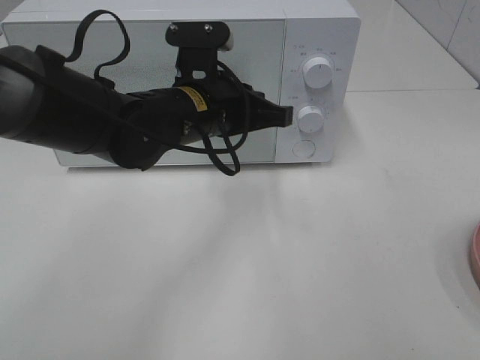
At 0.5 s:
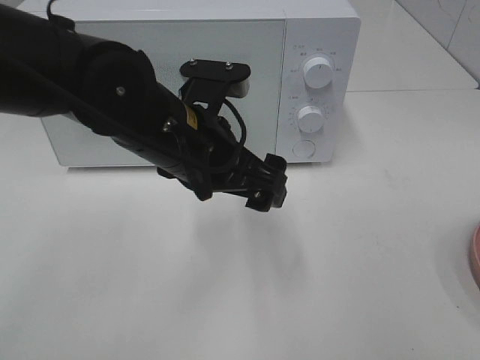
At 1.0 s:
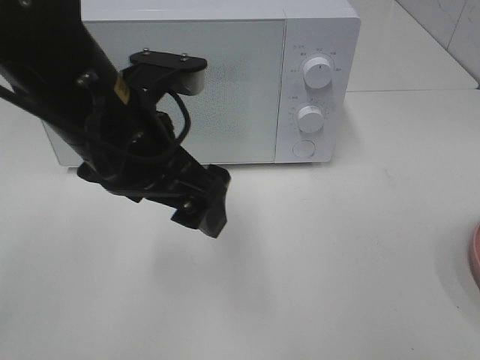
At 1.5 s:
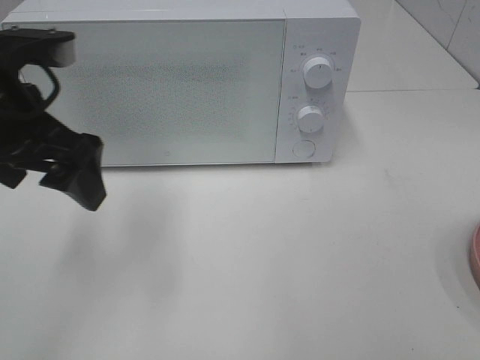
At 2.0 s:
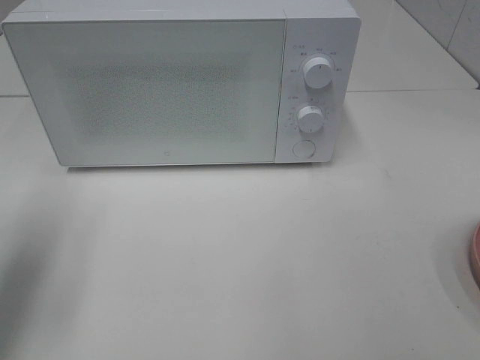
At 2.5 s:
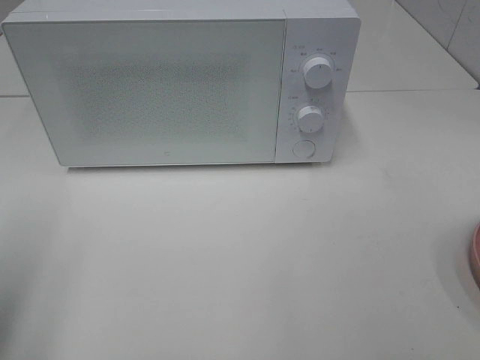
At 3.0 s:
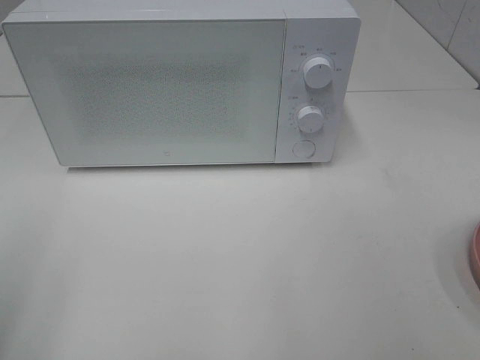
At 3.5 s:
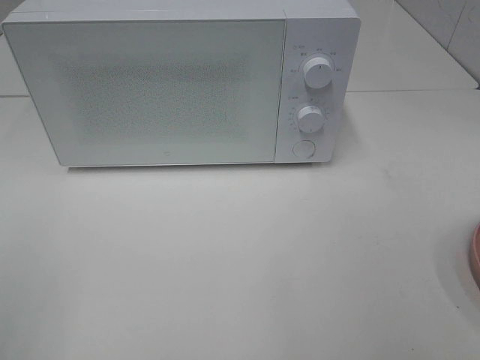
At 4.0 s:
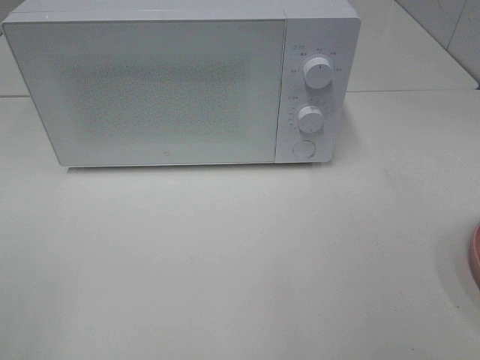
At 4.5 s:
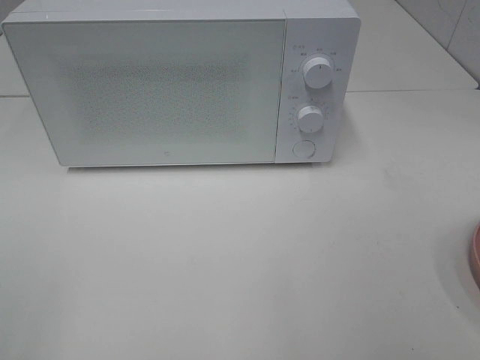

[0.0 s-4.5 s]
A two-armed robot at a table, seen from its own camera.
Task of the whole recording: Heat the burger.
0.0 to 2.0 s: The left gripper heads to the left and backward, covering about 30 cm, and opens its fingers.
2.0 to 4.5 s: The left gripper heads backward, covering approximately 20 cm.

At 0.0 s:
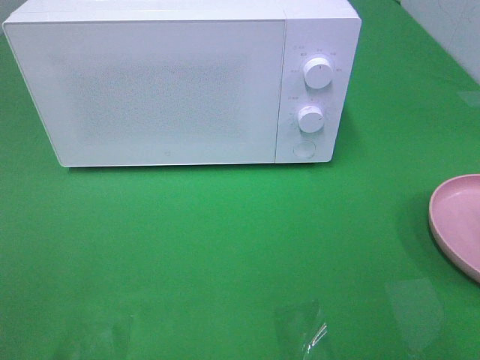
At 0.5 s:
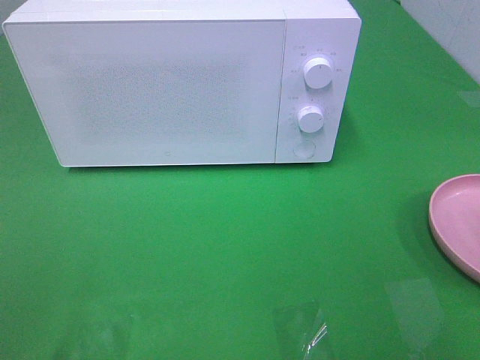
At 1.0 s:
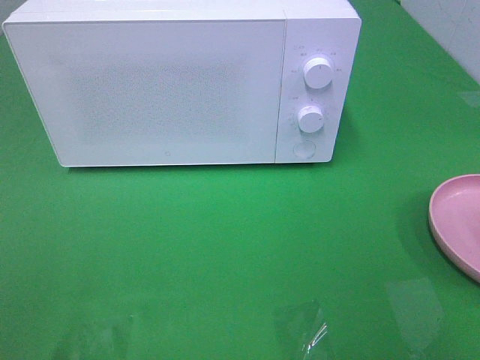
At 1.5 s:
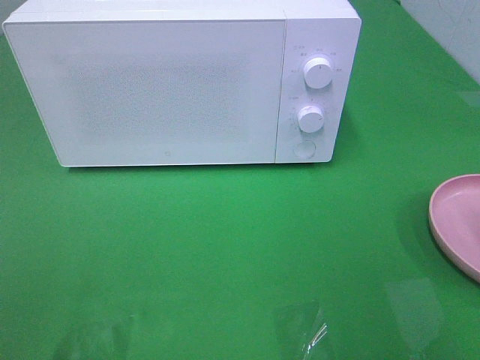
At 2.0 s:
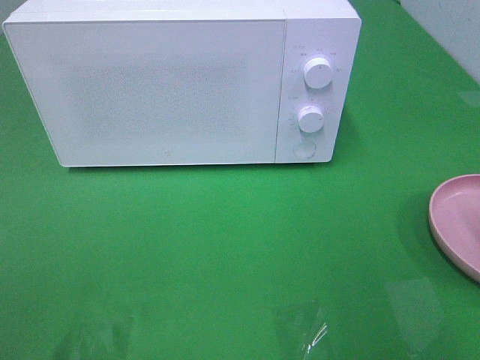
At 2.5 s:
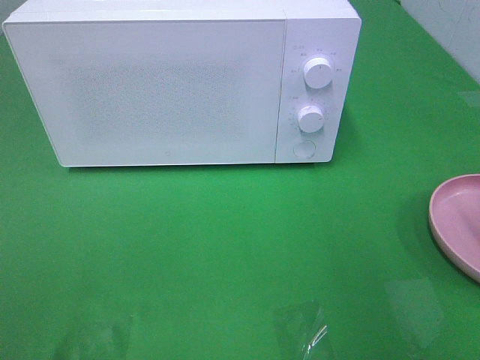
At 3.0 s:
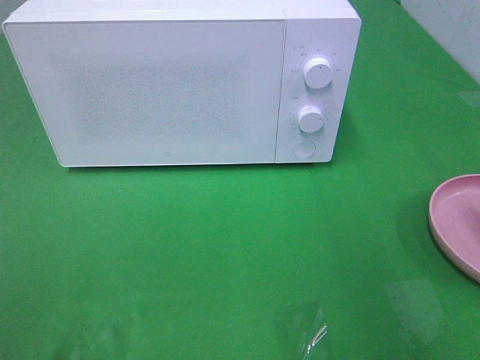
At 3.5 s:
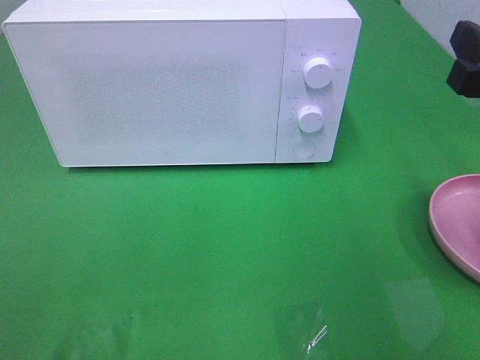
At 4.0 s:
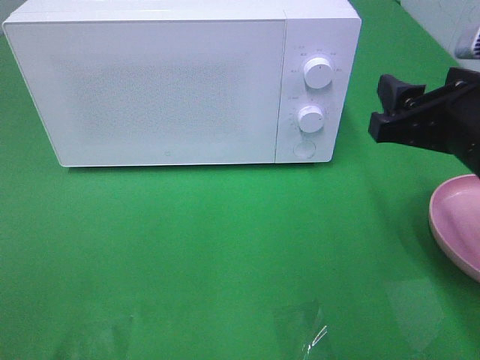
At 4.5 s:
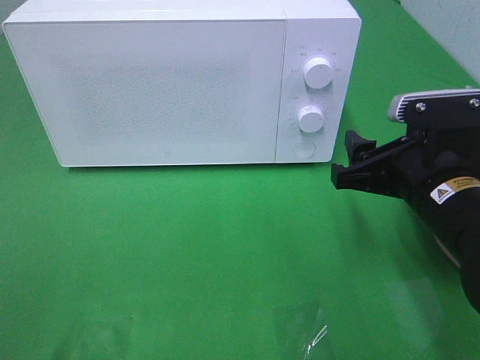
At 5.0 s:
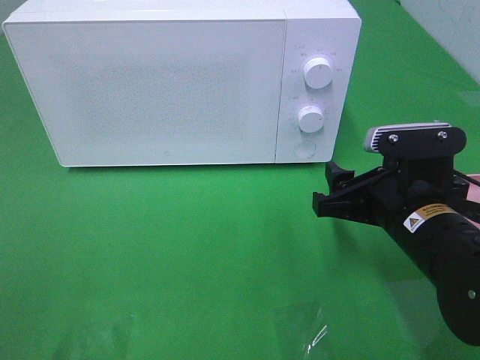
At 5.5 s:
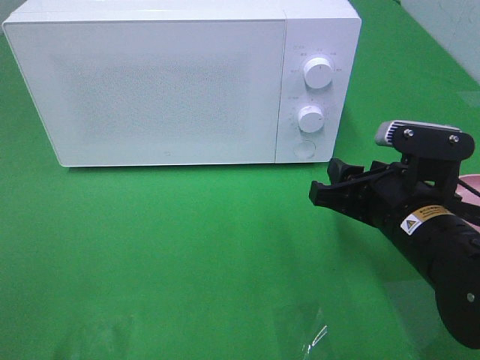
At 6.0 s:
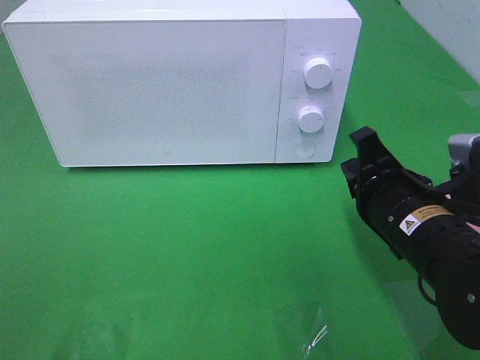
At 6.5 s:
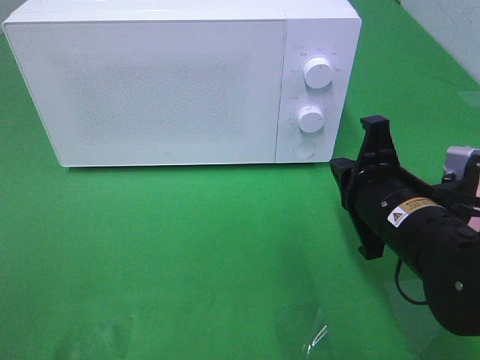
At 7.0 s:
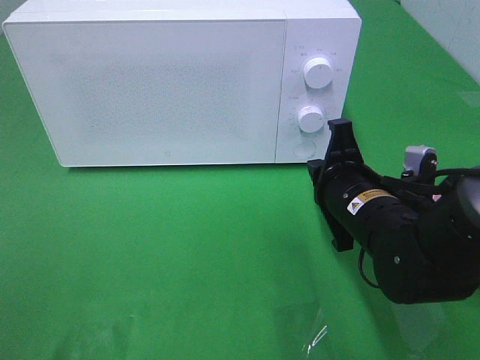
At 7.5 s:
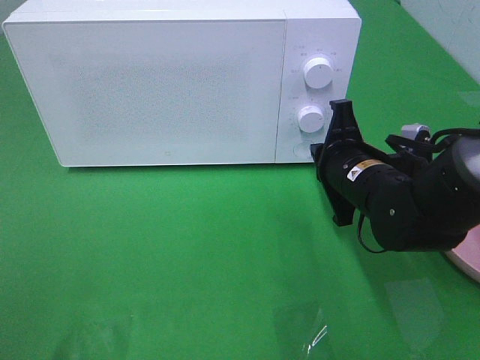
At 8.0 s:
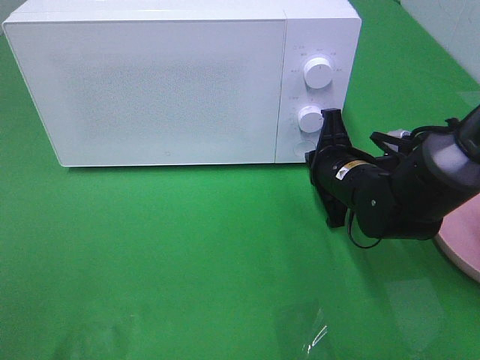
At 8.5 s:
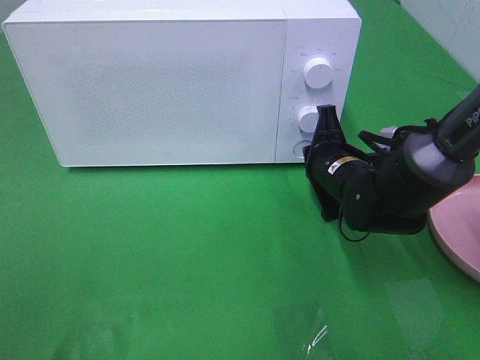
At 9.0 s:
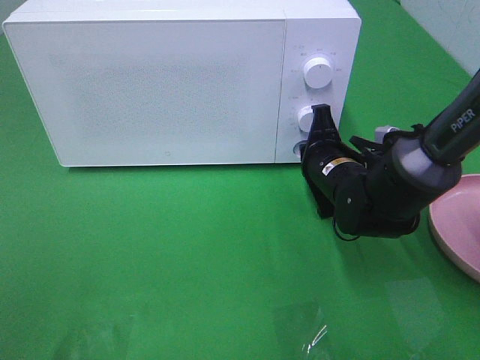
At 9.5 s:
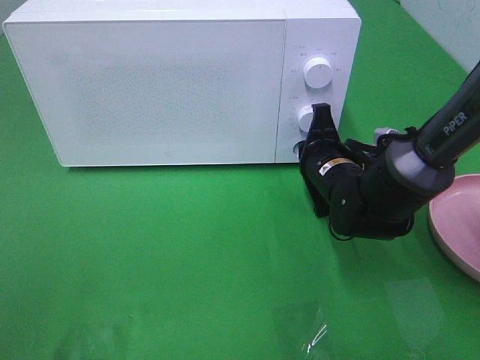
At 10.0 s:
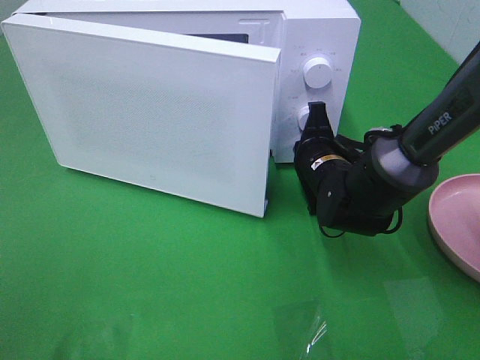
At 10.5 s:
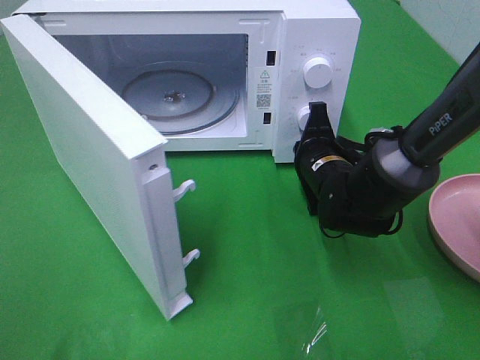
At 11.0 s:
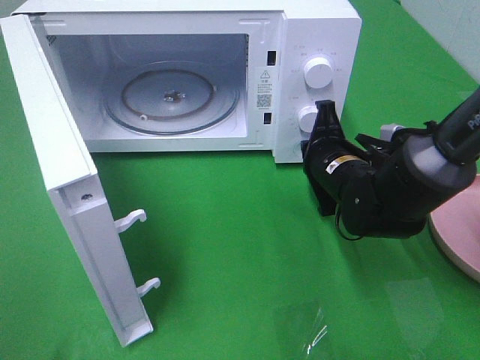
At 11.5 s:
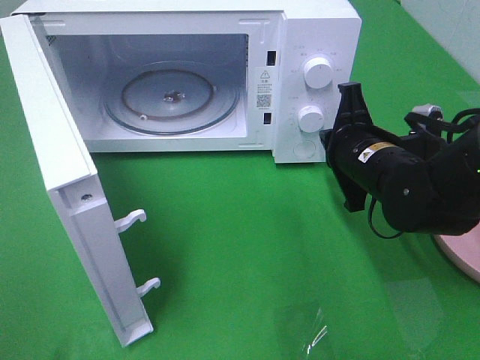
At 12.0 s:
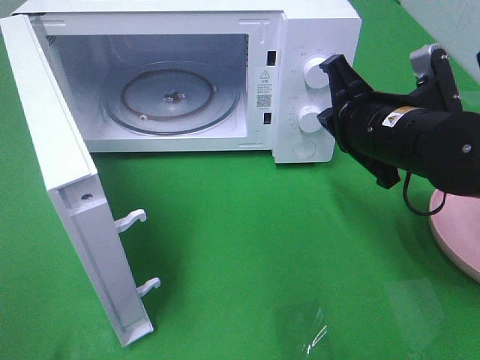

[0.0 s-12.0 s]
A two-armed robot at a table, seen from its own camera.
Task of the whole recording: Heat the burger.
Step, 0.0 to 8.5 s: Right hand: press the switch.
2.0 to 4.0 s: The right gripper goes about 15 cm downward, to the left and forward.
4.0 to 6.0 s: The right gripper travels downward by approximately 10 cm, and closes its fingers.
6.0 to 8.0 s: The right gripper goes some 10 cm forward.
8.0 to 10.0 s: The grippers make only small movements.
10.0 to 12.0 s: The right gripper is displaced upward and backward by approximately 15 cm.

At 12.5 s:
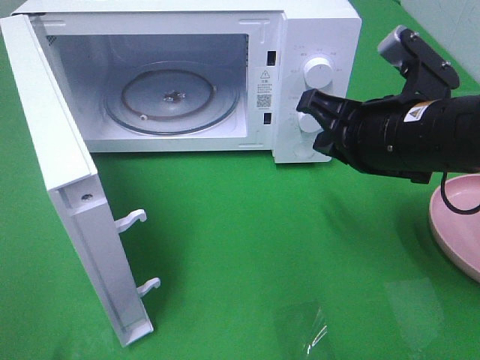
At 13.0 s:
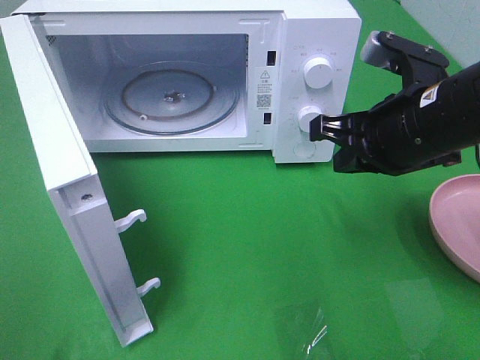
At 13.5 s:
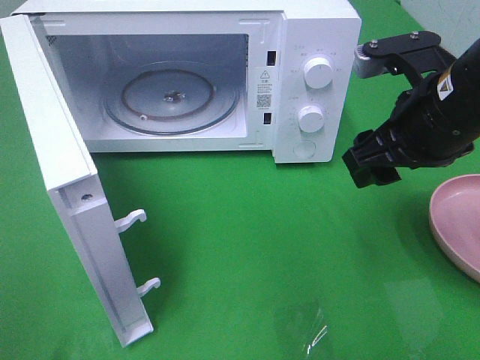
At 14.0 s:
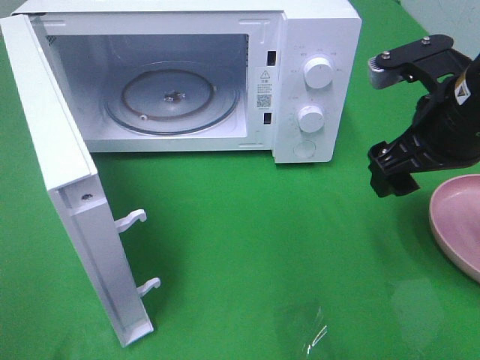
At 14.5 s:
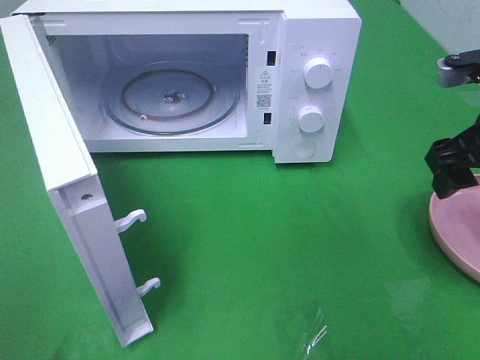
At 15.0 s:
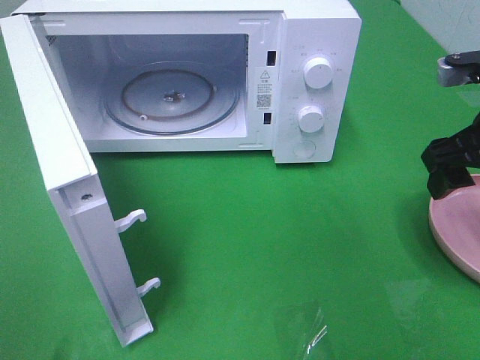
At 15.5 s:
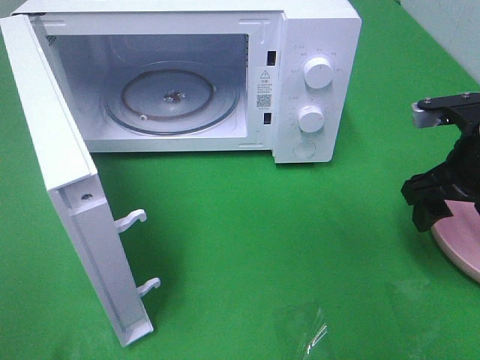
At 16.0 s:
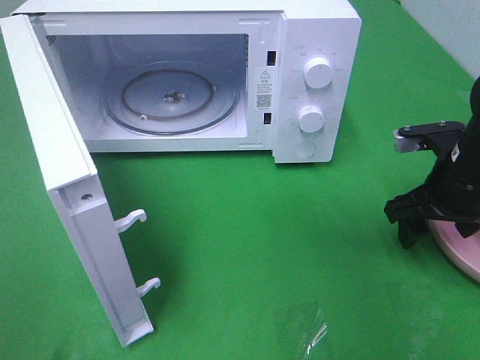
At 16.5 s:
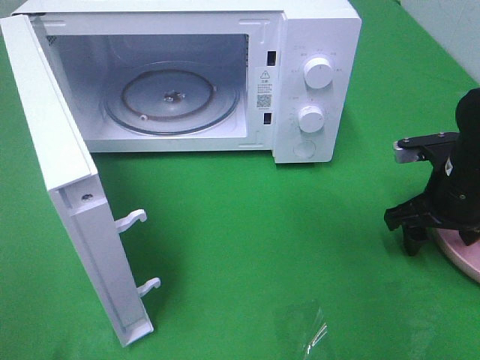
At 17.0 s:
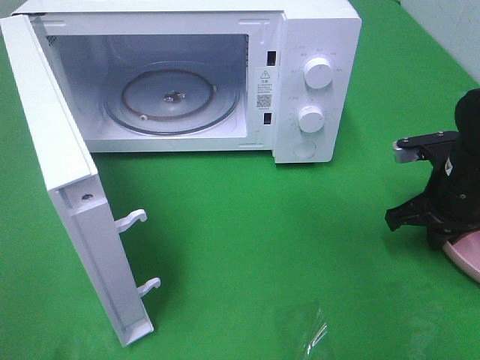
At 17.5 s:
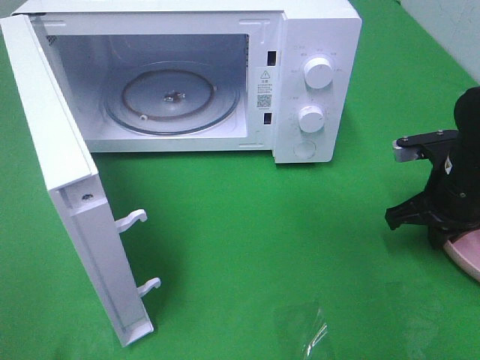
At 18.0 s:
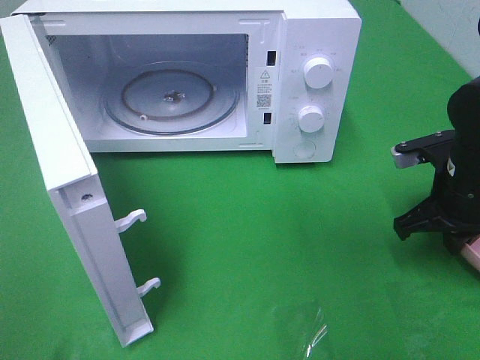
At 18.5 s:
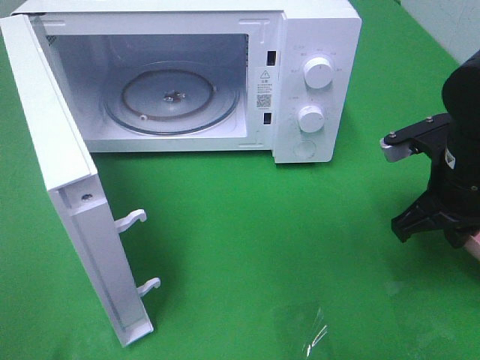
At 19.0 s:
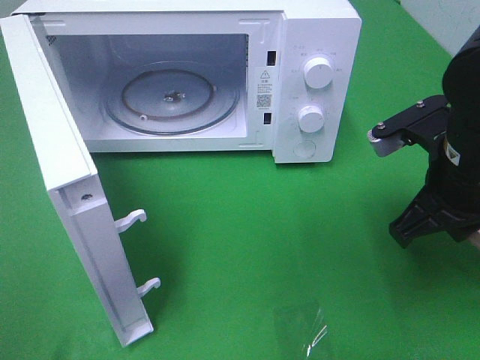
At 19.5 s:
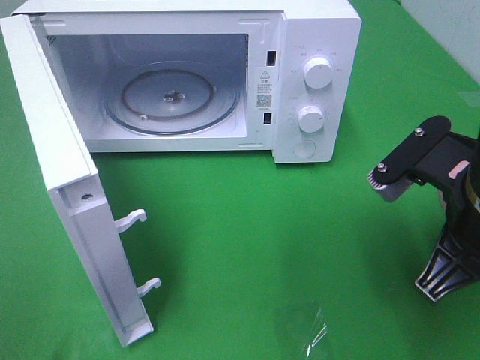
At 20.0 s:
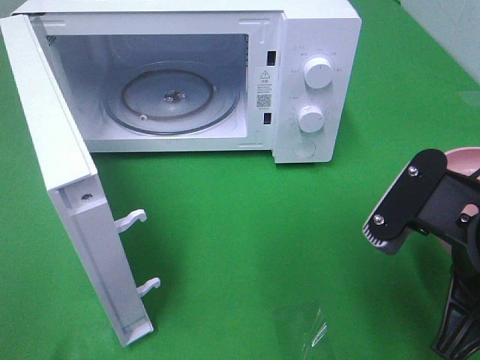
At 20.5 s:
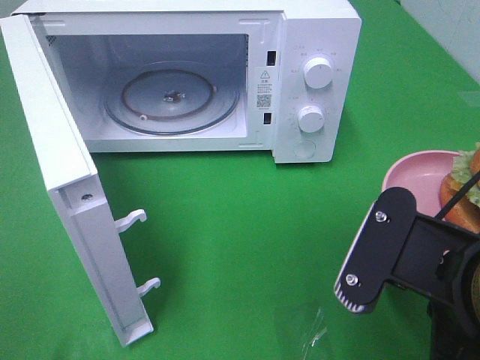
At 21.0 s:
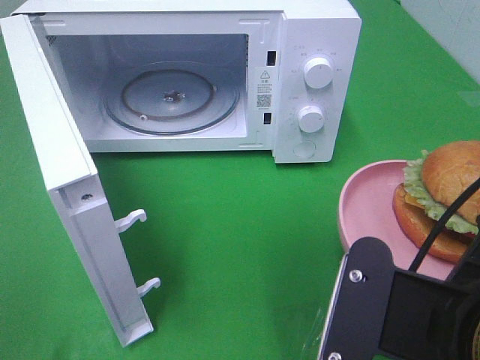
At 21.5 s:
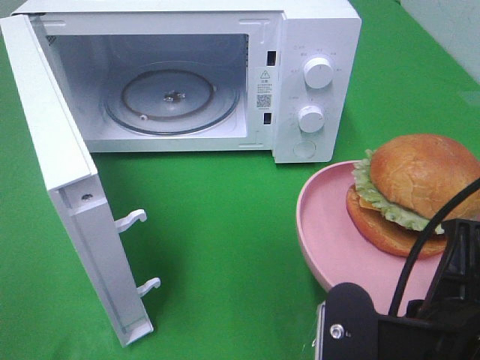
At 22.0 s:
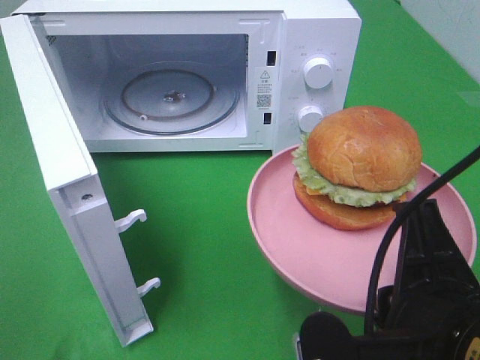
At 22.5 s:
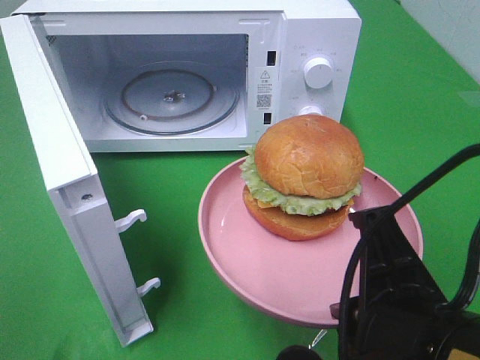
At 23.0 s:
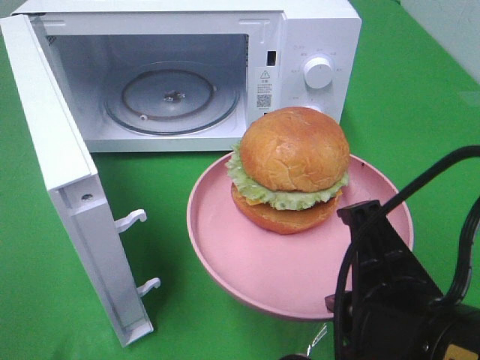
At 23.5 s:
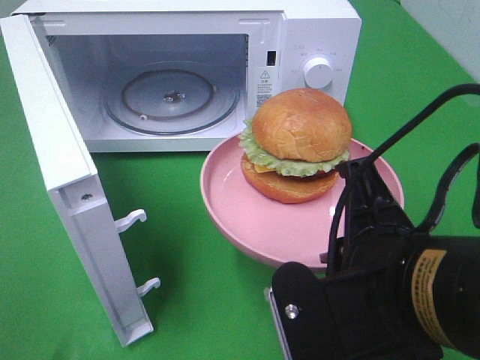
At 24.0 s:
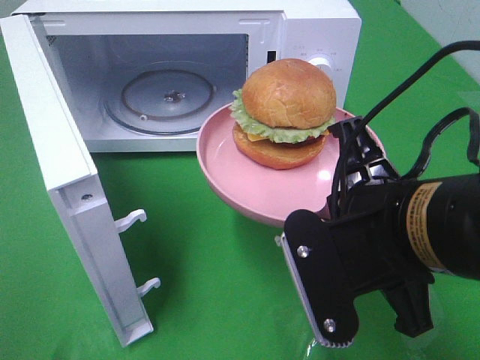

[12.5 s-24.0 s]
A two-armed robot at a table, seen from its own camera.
Task of the whole recording: Heat the burger.
Step, 12.5 to 17.0 s: Right hand: grab the plate with the hamburger.
12.5 to 14.5 s: The right gripper travels to the right by roughly 10 cm, and opens its fingers.
14.5 to 16.5 s: The right gripper moves downward, approximately 10 cm.
16.5 to 18.5 s: The right gripper moves upward, some 5 cm, and closes its fingers.
18.5 to 20.0 s: The right gripper shifts some 15 cm backward and to the left.
20.0 to 22.0 s: The right gripper goes about 10 cm backward and to the left.
22.0 to 24.0 s: The right gripper shifts about 10 cm forward.
